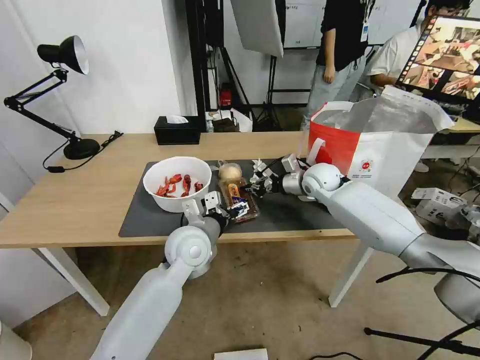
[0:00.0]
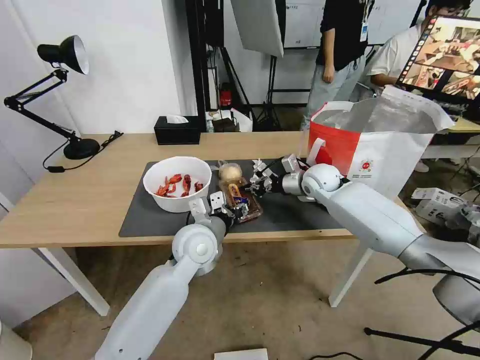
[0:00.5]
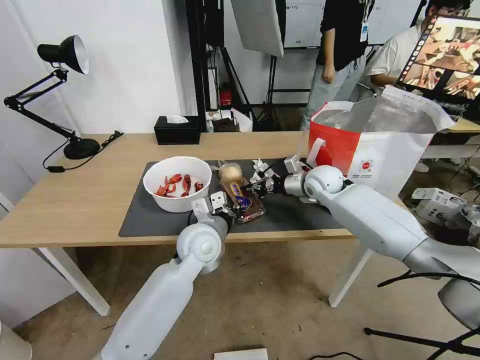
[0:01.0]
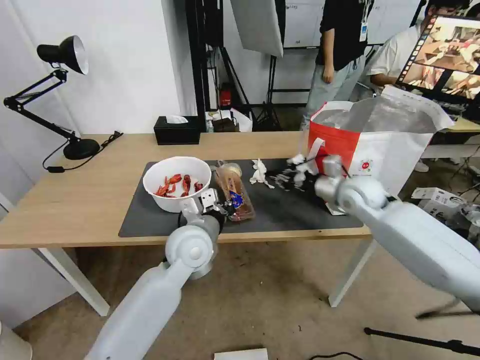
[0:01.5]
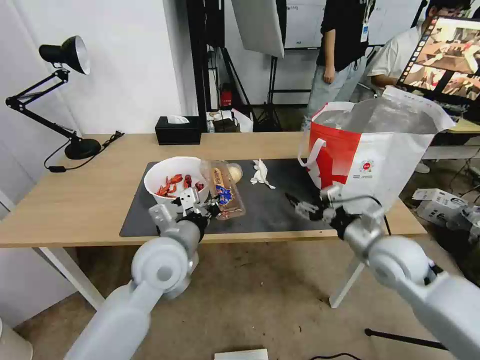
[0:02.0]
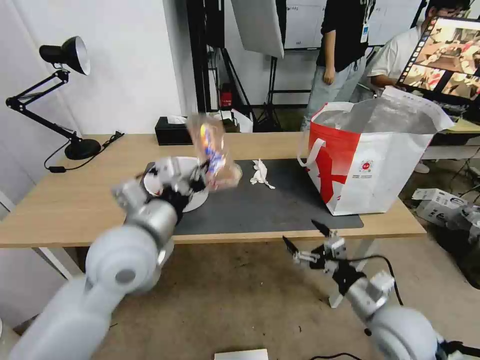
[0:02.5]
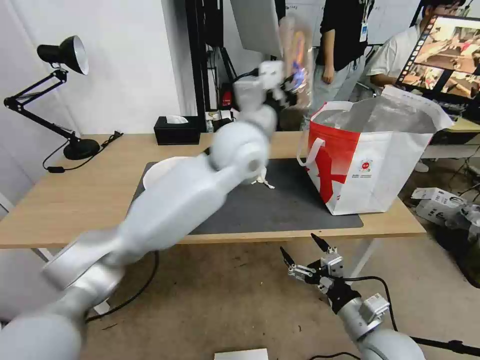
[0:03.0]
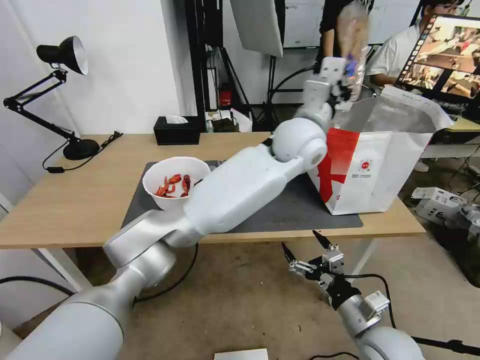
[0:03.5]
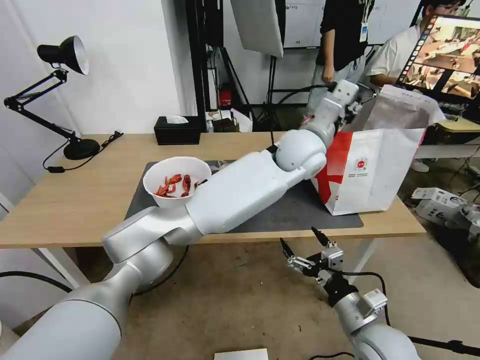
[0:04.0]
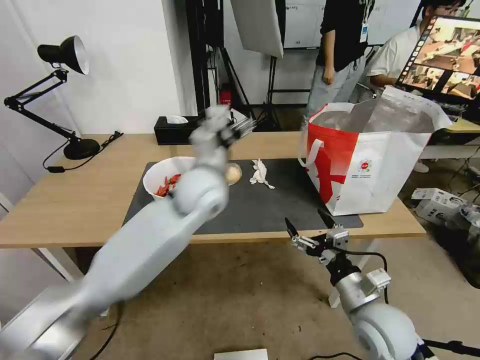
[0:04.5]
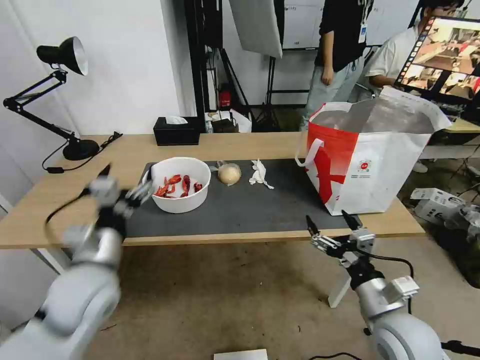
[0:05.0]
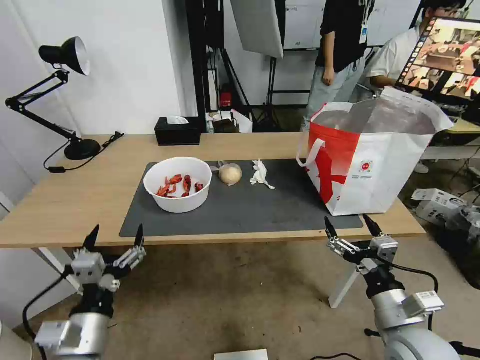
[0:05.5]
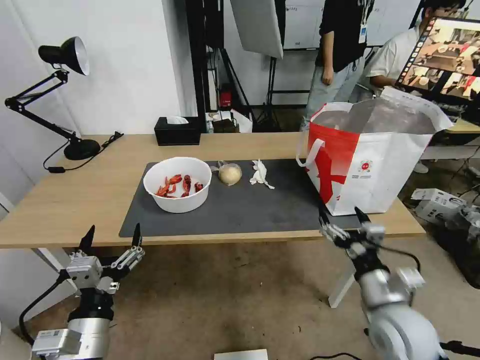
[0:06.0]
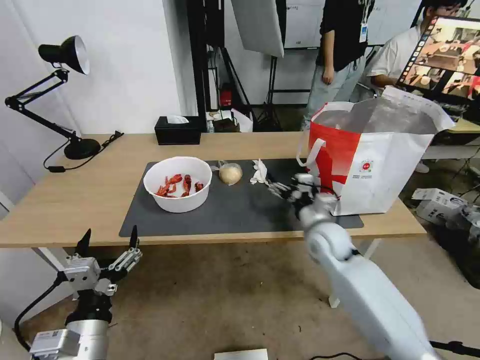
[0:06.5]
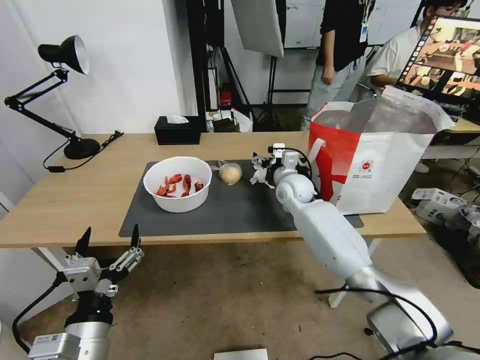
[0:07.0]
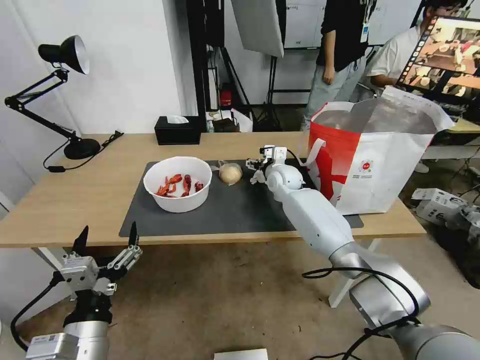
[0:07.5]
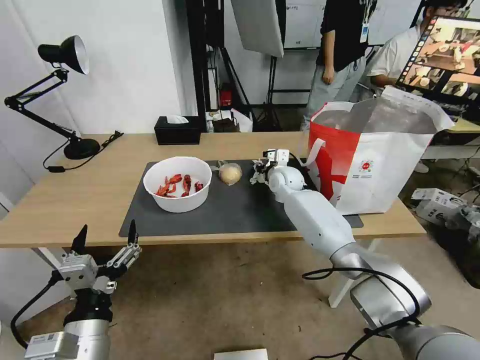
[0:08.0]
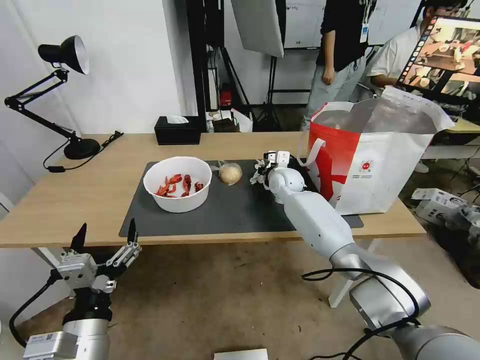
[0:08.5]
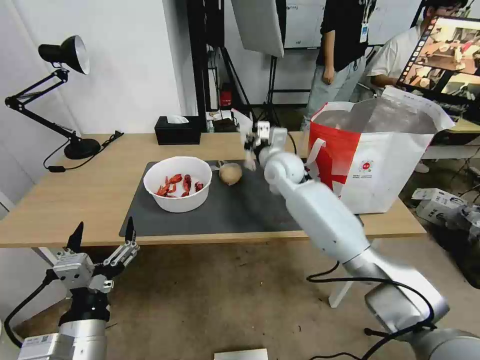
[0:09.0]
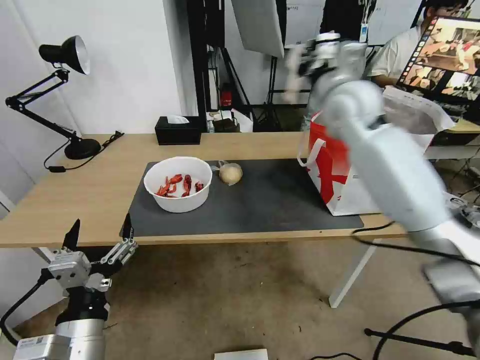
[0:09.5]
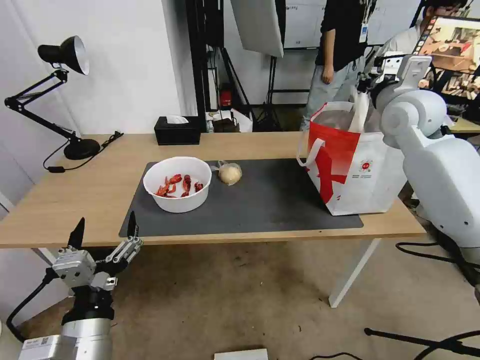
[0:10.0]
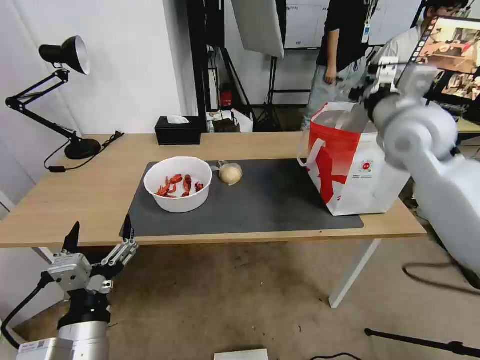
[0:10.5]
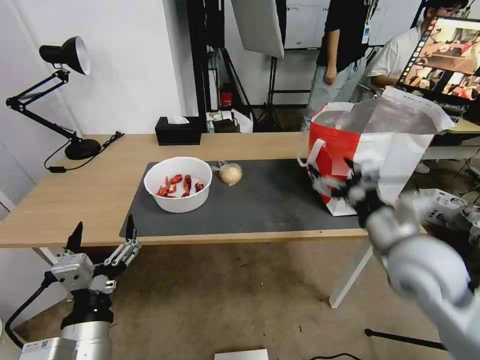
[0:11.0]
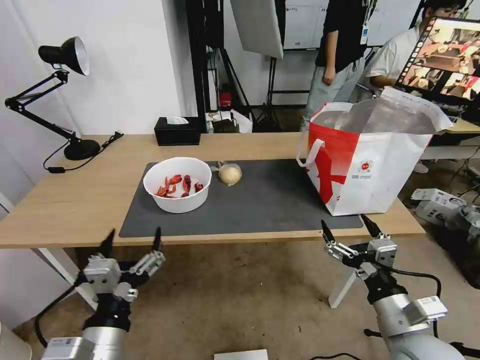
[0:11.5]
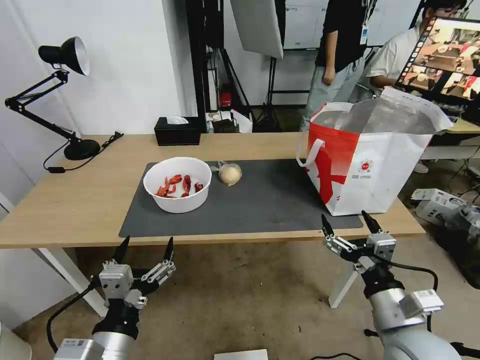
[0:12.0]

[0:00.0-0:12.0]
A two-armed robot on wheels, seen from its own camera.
Task of the whole recording: Pick up the trash from the table and place it into the takeout bag.
0:00.0 to 0:02.0: The right gripper heads backward, covering about 25 cm, and opens. The left gripper travels backward by approximately 5 cm, and closes its fingers.
0:02.0 to 0:04.0: The right gripper travels backward and downward by about 15 cm; the left gripper is displaced to the right, forward and upward by approximately 35 cm, and opens.
0:04.0 to 0:06.0: The right gripper moves some 5 cm. Meanwhile the left gripper is displaced to the left, backward and downward by about 50 cm, and opens its fingers.
0:06.0 to 0:08.0: The right gripper travels forward by about 35 cm, and closes its fingers.
0:08.0 to 0:10.0: The right gripper moves upward and to the right, approximately 30 cm.
0:10.0 to 0:12.0: The right gripper is displaced backward and downward by about 40 cm, and opens.

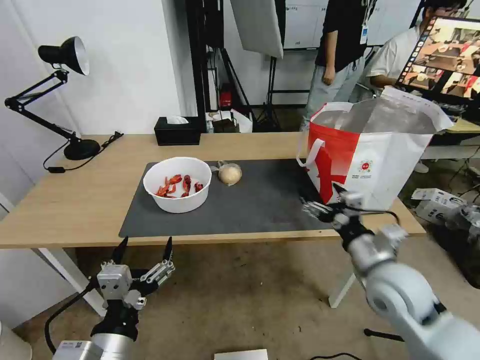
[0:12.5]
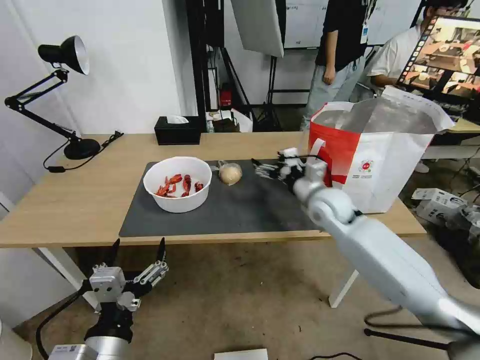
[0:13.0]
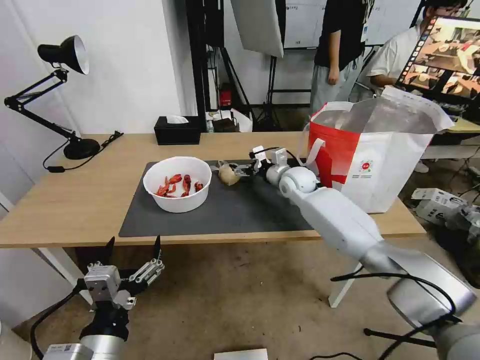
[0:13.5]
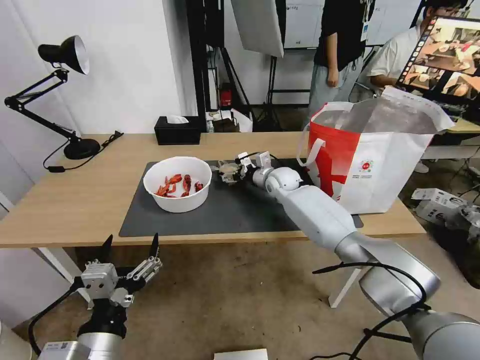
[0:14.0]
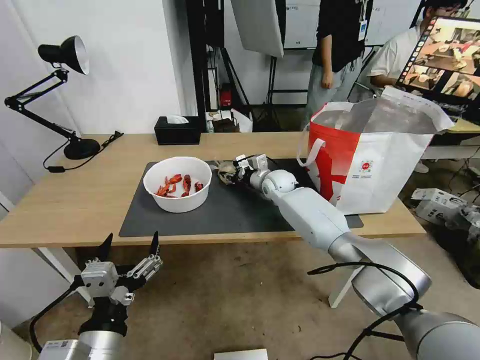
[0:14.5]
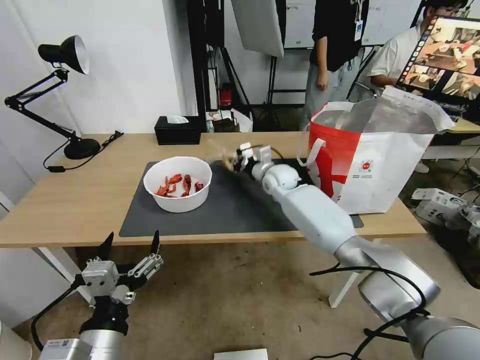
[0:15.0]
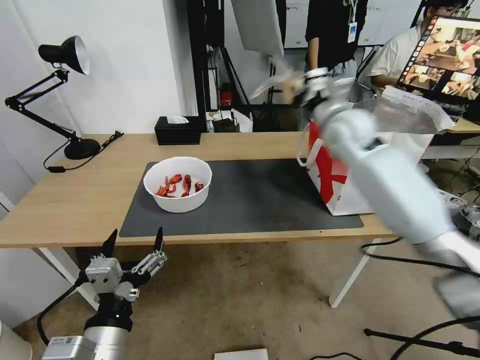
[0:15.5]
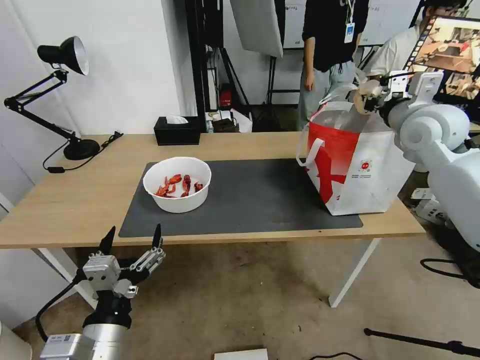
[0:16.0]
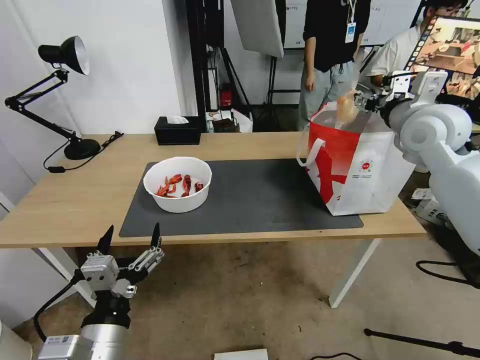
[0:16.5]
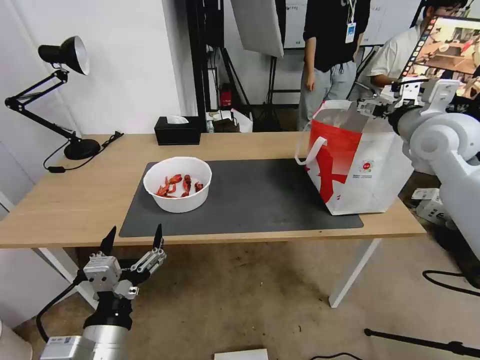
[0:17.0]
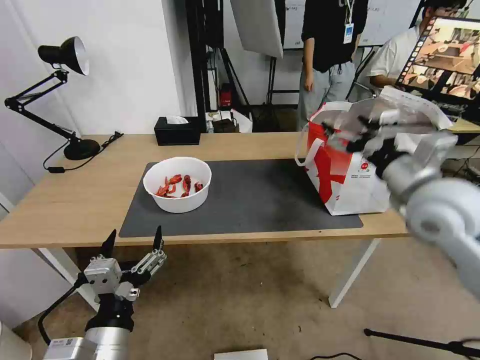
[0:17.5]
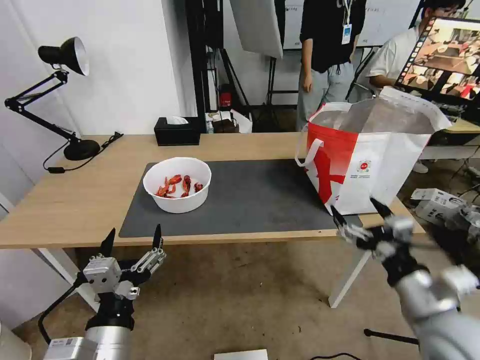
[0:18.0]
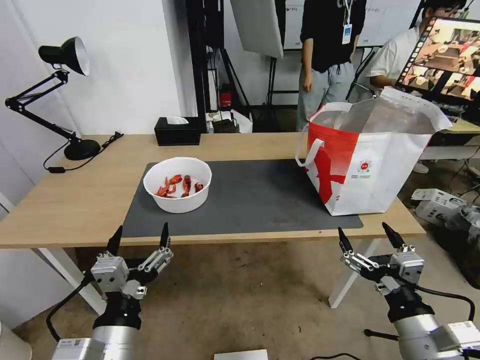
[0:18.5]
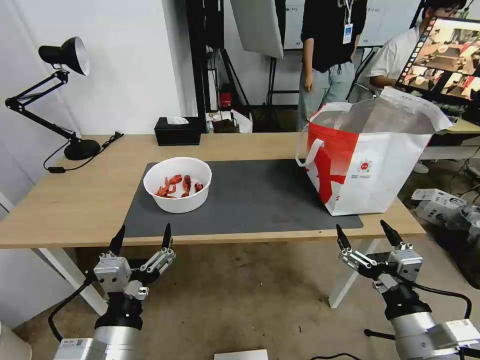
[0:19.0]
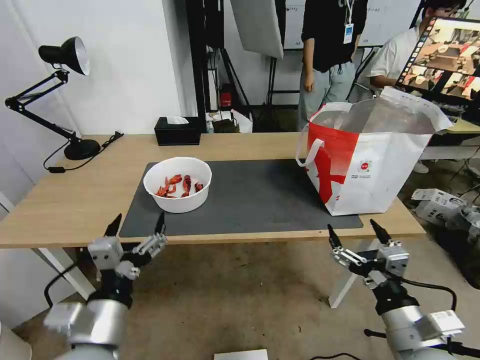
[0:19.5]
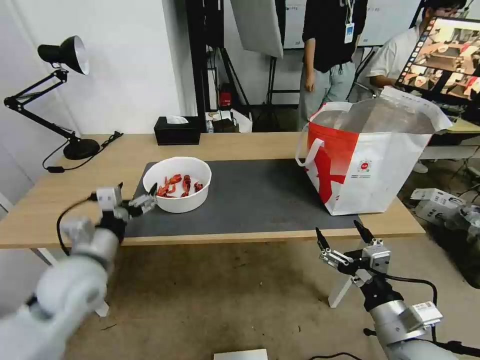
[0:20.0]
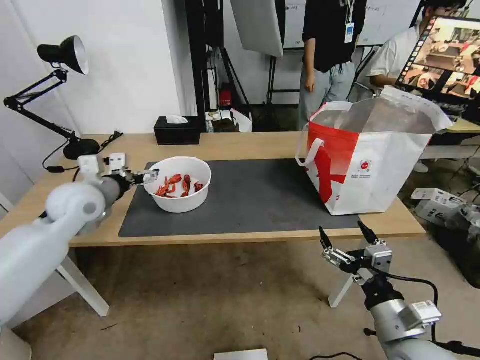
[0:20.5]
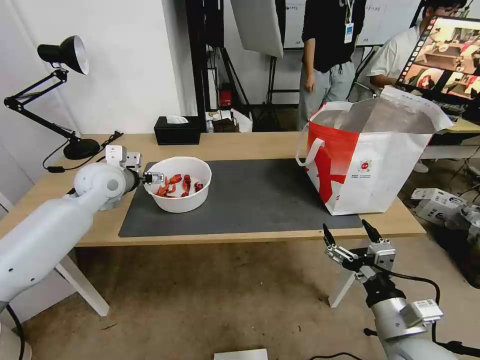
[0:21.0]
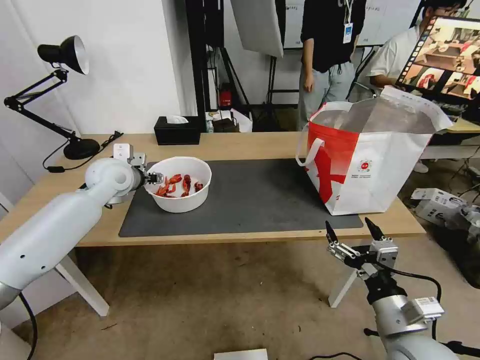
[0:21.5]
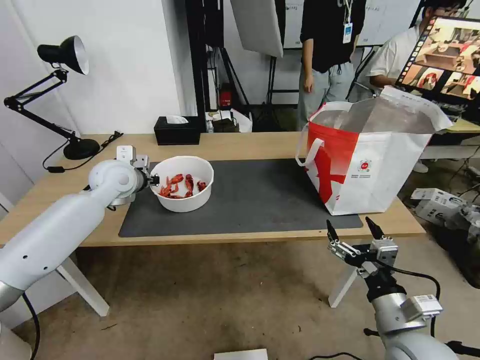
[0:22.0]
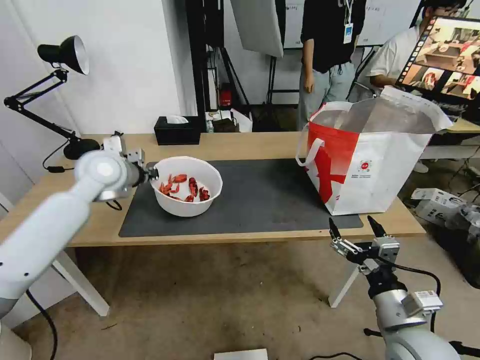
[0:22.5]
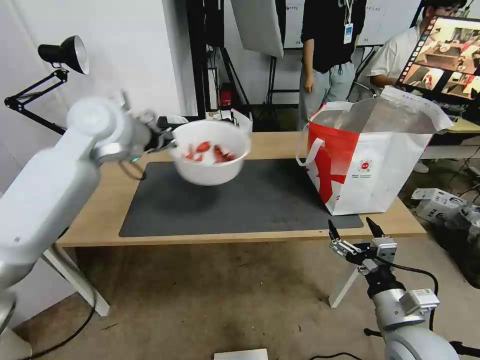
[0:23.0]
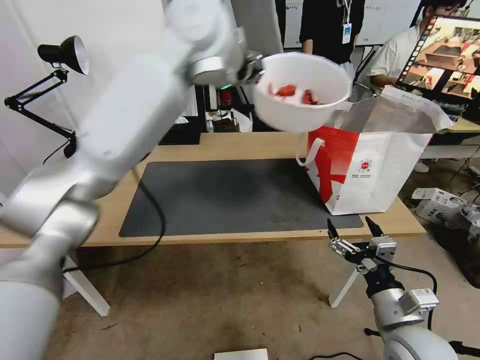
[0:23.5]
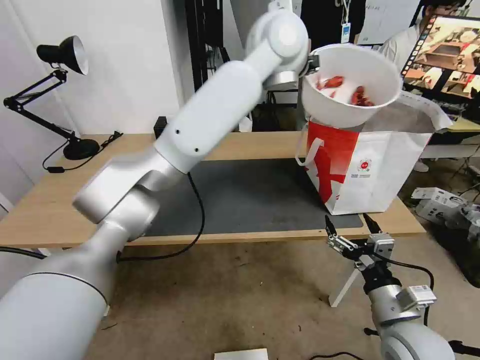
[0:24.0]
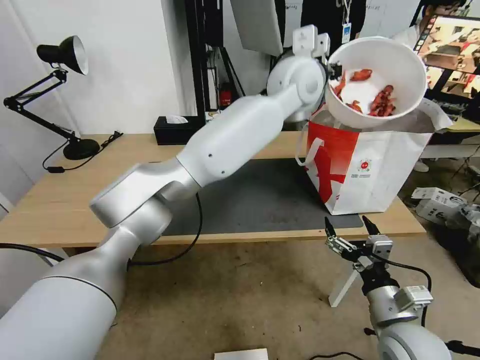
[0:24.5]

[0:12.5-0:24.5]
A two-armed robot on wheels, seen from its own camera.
Task of the whole recording: Pick up the trash from the table and place it into the takeout bag.
0:12.5 to 0:14.5: The right gripper travels forward and to the left by roughly 35 cm, and closes its fingers.
0:14.5 to 0:16.5: The right gripper is displaced upward, to the right and backward by approximately 35 cm.
0:16.5 to 0:18.5: The right gripper moves backward and downward, roughly 40 cm.
0:18.5 to 0:20.5: The left gripper goes some 35 cm forward and to the left.
0:20.5 to 0:22.5: The left gripper travels forward by approximately 5 cm, and closes.
0:22.5 to 0:24.5: The left gripper travels to the right by about 40 cm.

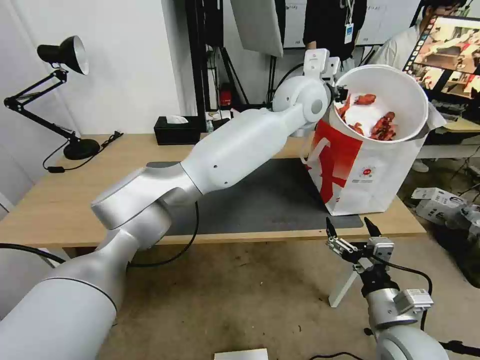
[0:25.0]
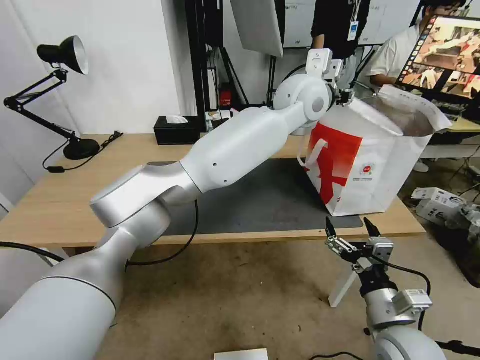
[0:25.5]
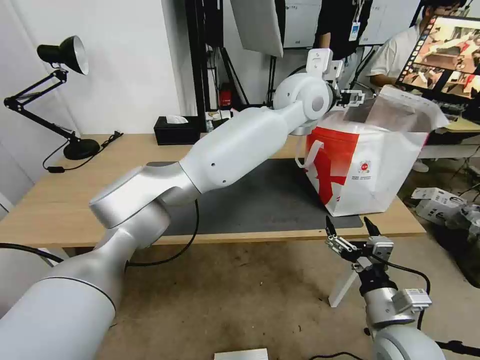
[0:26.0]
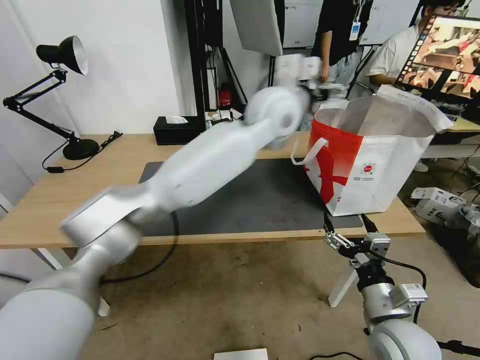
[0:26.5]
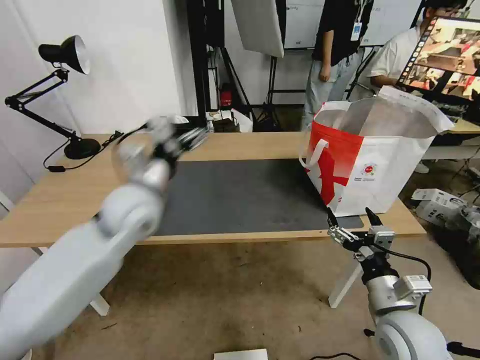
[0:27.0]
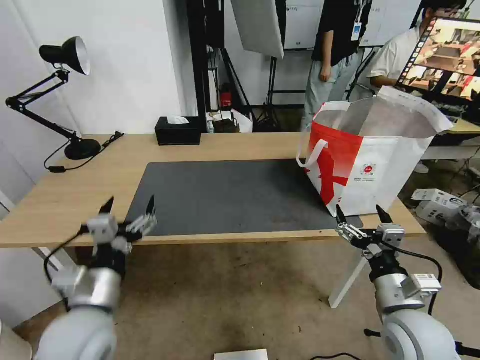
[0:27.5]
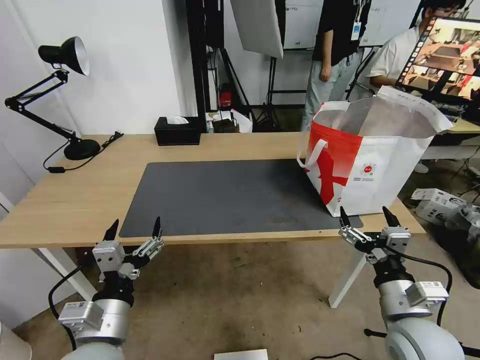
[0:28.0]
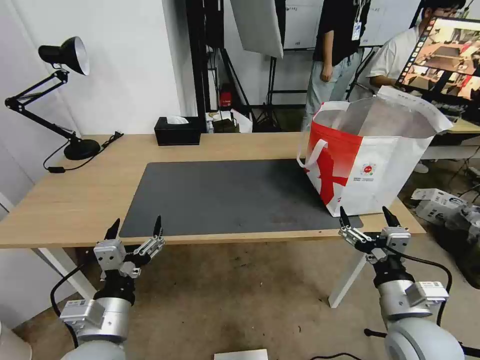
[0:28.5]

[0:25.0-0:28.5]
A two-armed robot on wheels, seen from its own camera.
Task of the whole recording: Pick up the trash from the table and place it into the takeout bag.
0:25.0 to 0:27.0: The left gripper is displaced to the left, backward and downward by approximately 35 cm, and opens.
0:27.0 to 0:28.5: The left gripper heads backward and downward, covering about 25 cm.
